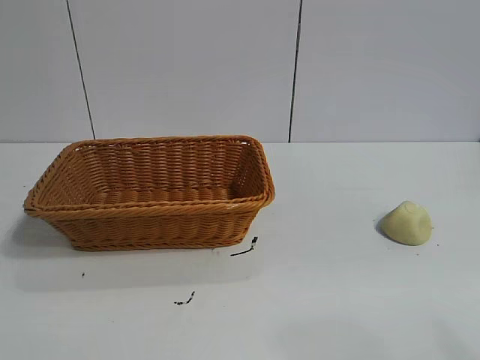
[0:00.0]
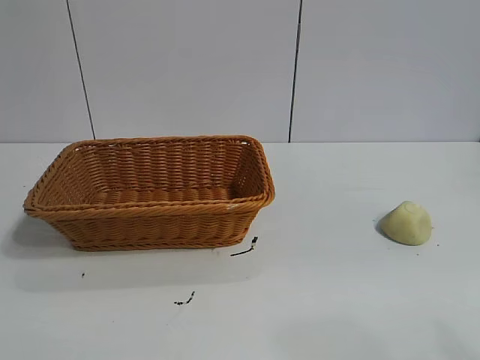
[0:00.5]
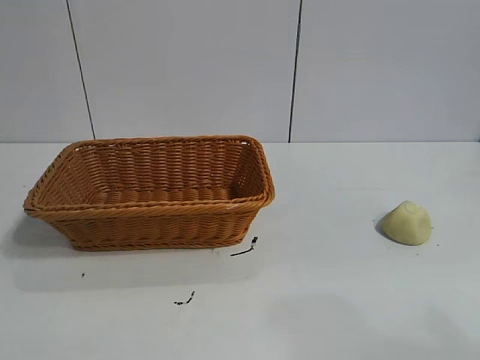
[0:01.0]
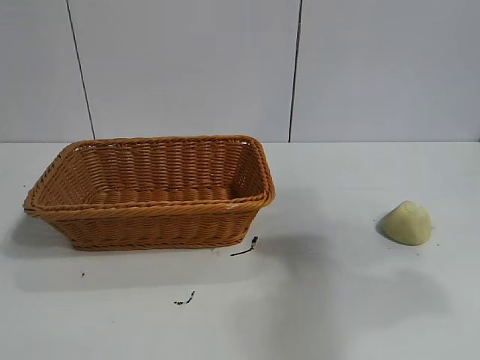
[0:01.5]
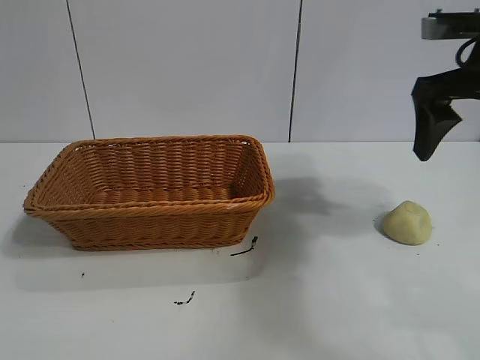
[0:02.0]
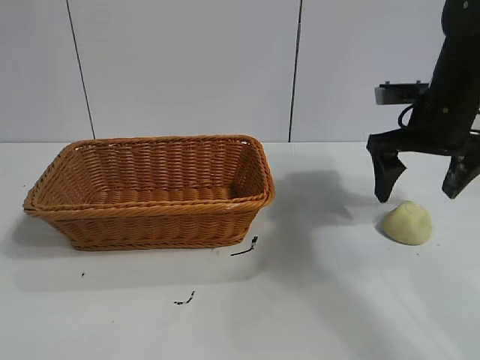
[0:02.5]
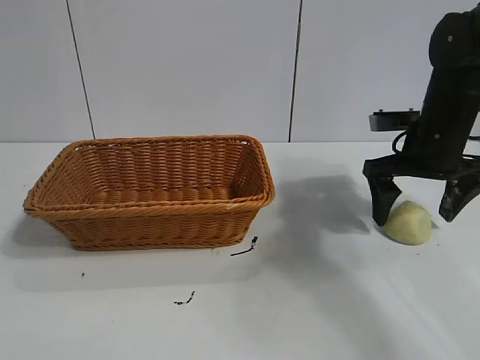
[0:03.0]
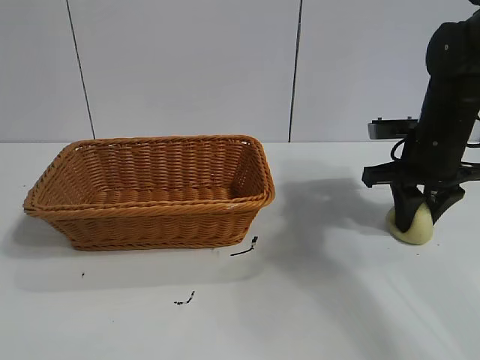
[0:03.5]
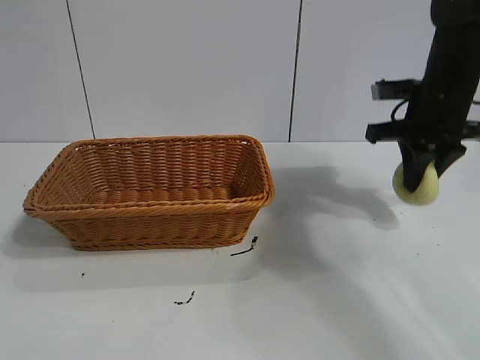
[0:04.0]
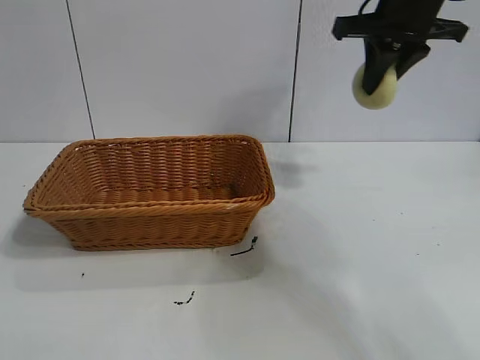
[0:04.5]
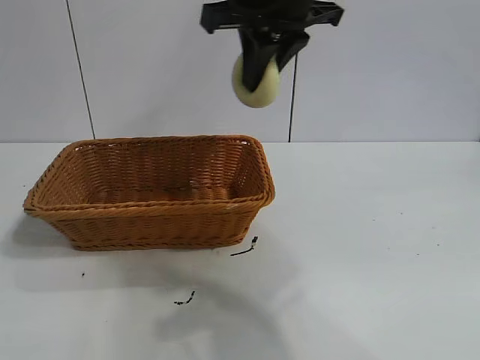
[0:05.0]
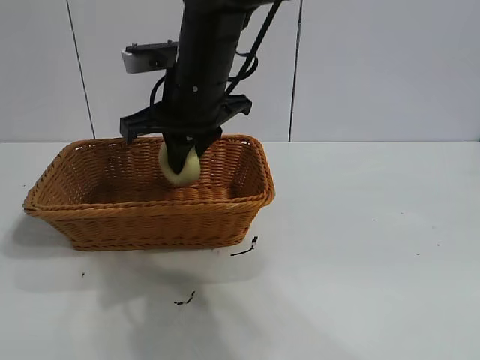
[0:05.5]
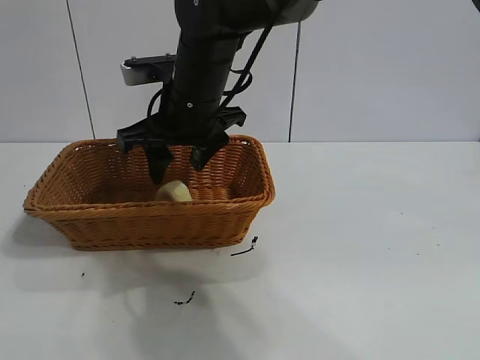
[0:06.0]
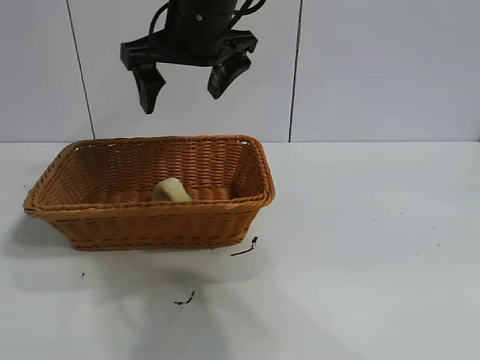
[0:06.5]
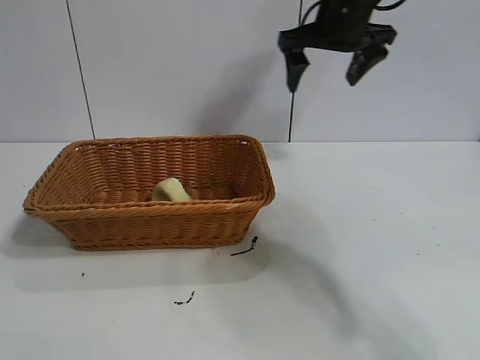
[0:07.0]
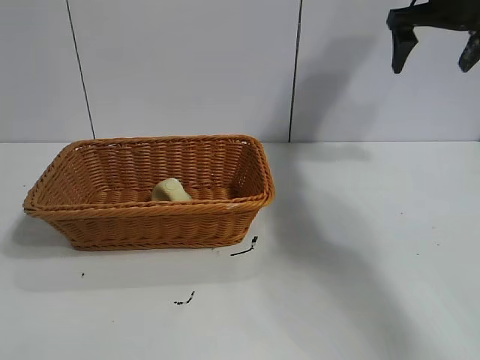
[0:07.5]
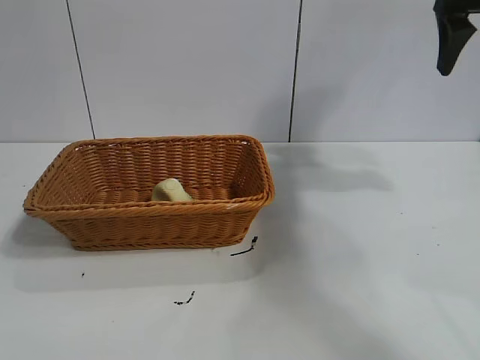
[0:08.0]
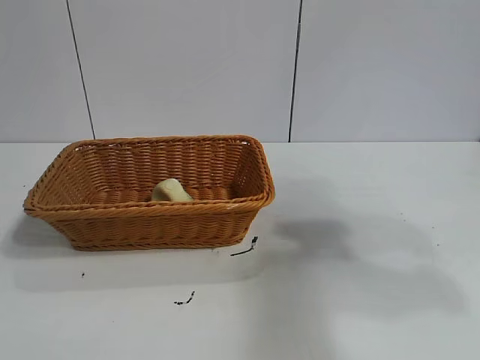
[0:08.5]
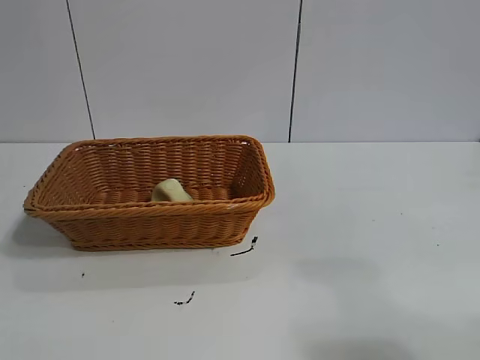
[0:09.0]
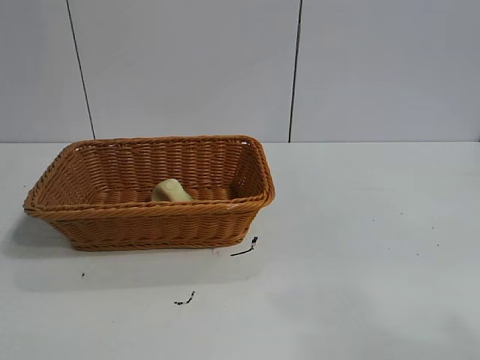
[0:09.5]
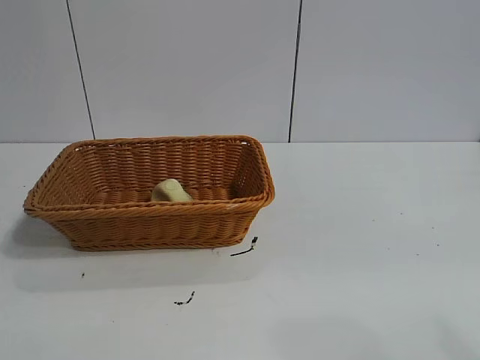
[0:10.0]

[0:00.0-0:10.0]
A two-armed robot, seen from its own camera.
Task of the whole recording: pick up the egg yolk pastry and put it into the basket.
Step, 0:01.0 to 0:03.5: Grasp egg yolk pastry with right gripper.
Step, 0:04.0 to 0:06.0: Place the egg yolk pastry in the basket with right gripper.

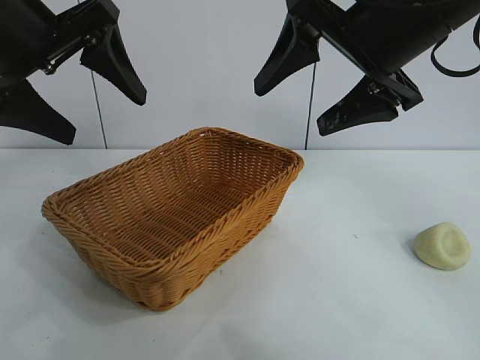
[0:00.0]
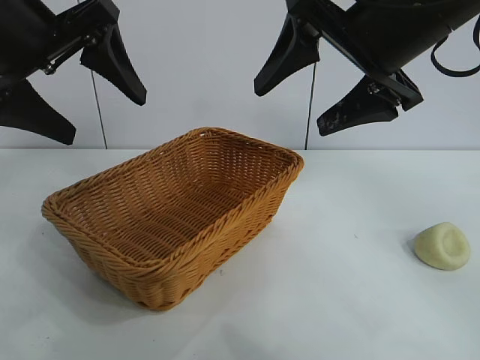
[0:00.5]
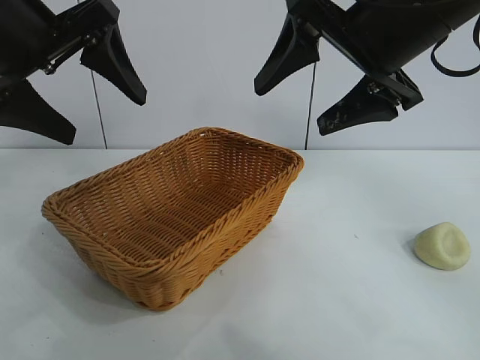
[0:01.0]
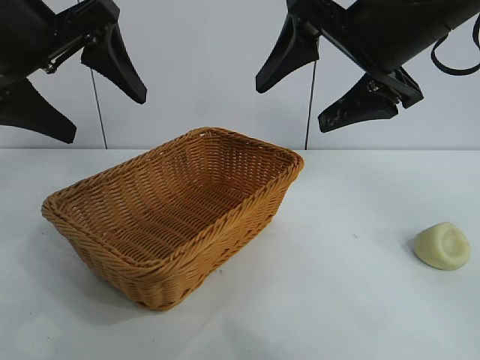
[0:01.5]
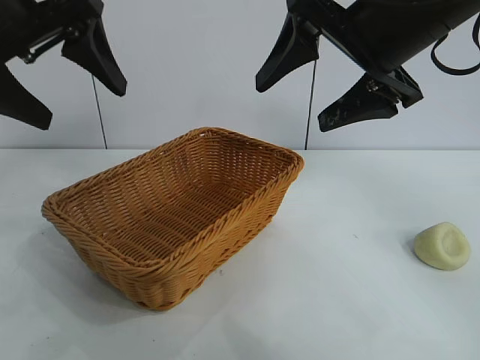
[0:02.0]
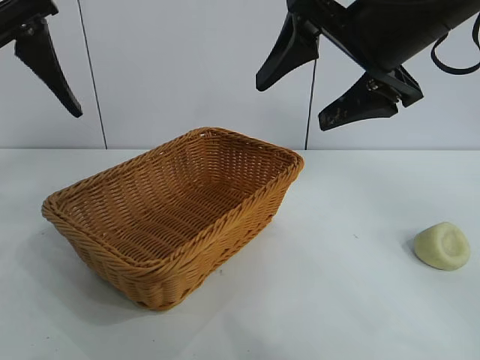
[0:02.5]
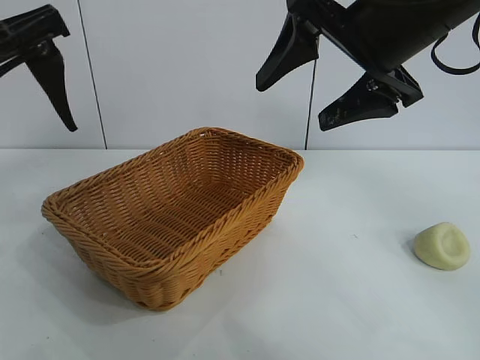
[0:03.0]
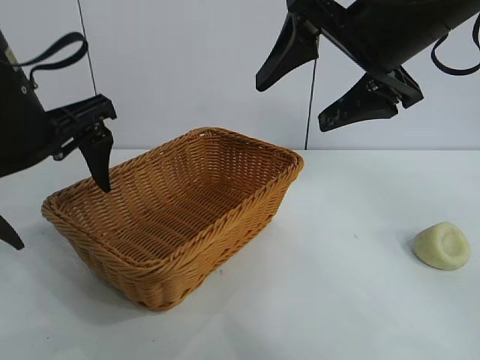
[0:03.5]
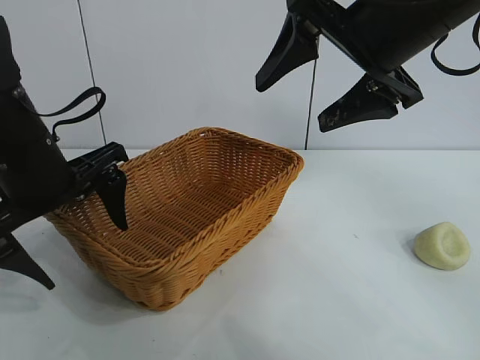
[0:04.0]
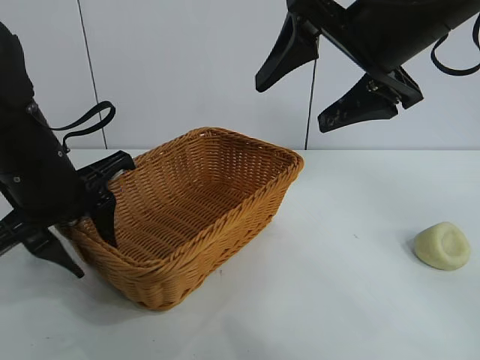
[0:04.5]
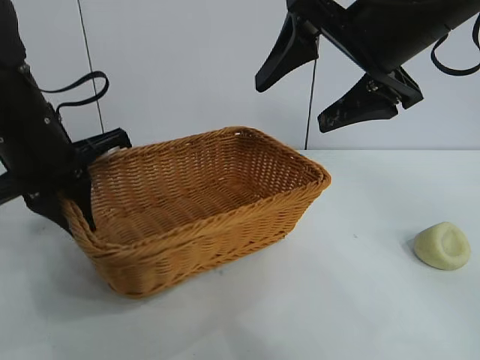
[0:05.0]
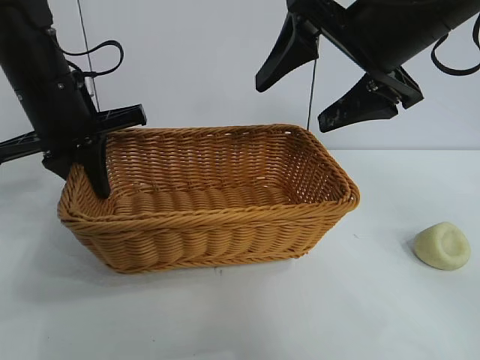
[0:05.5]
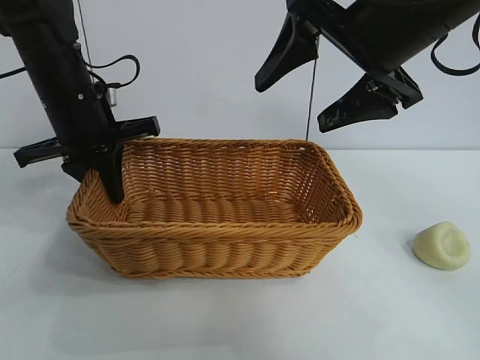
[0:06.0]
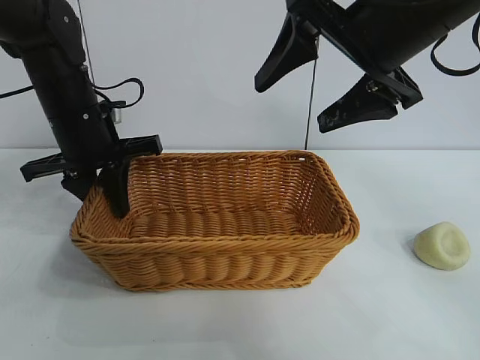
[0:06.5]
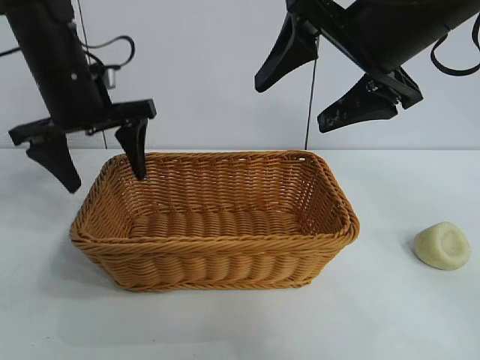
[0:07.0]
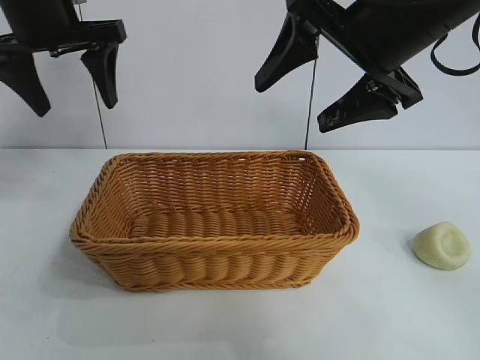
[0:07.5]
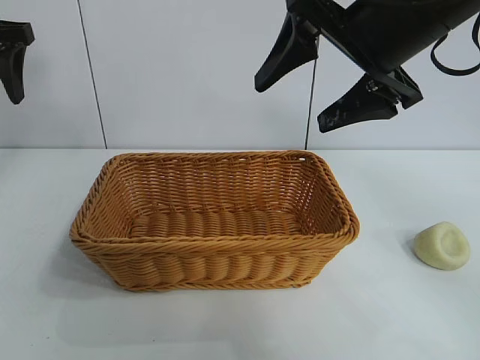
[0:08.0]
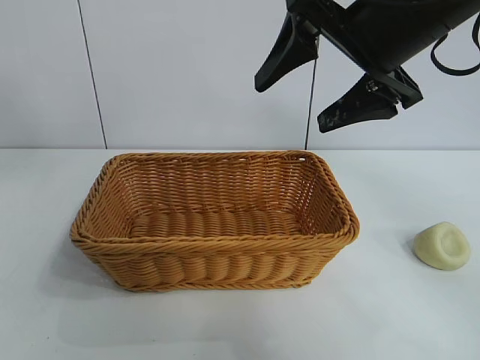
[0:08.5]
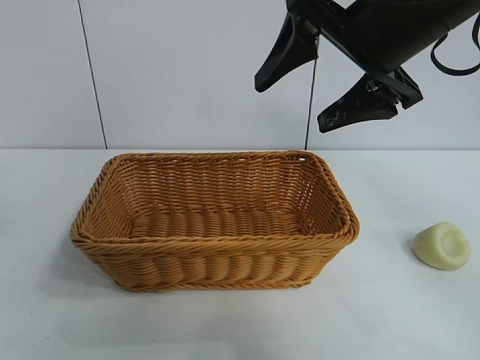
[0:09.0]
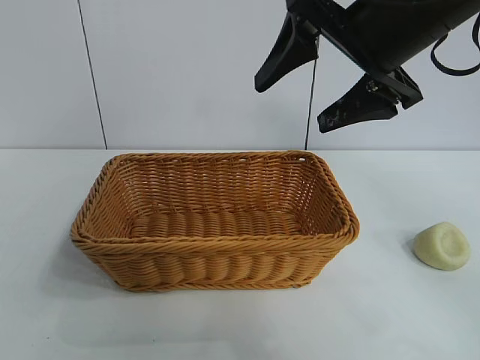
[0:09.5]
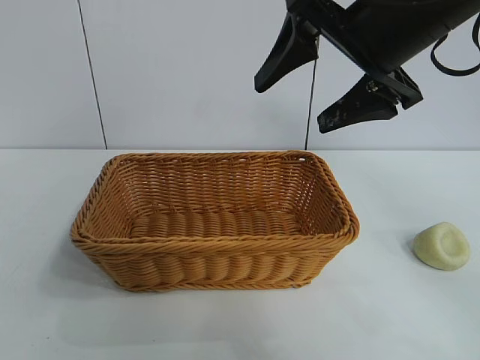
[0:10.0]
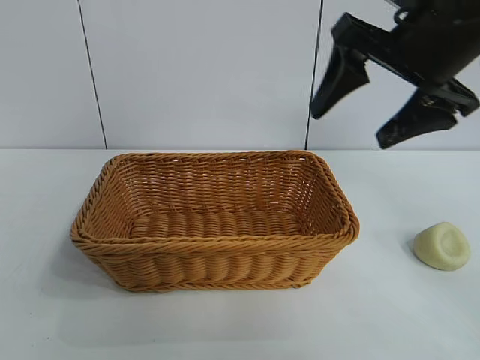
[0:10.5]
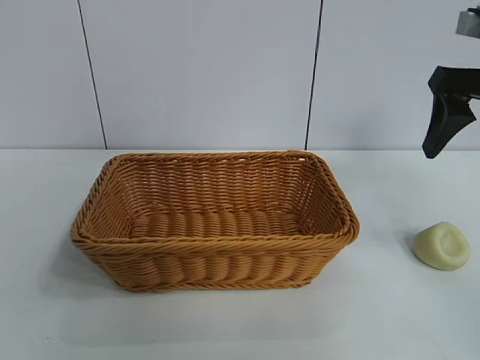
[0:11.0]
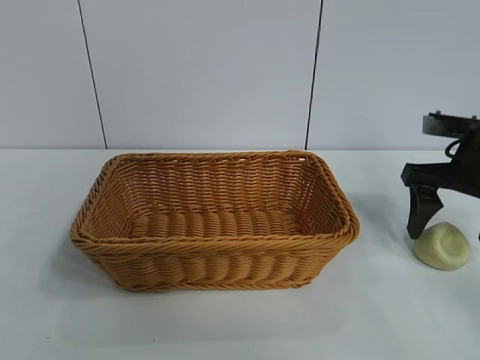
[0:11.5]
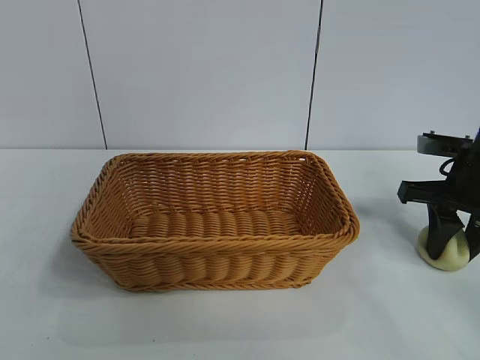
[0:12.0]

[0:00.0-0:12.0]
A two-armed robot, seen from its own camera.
Task of the whole recording: pick up the egg yolk pastry and put it into the basket.
Step, 0:01.0 to 0:04.5: Grasp the basket with left gripper.
Step, 0:05.0 to 0:06.5: Place the basket in the center of view with left gripper.
Step, 0:07.0 to 0:11.5: Grasp egg yolk pastry with right gripper.

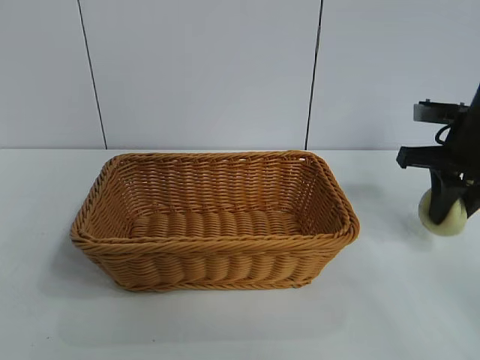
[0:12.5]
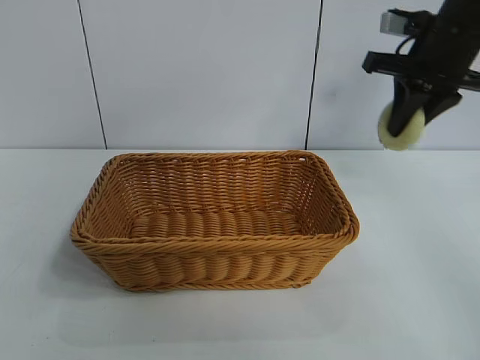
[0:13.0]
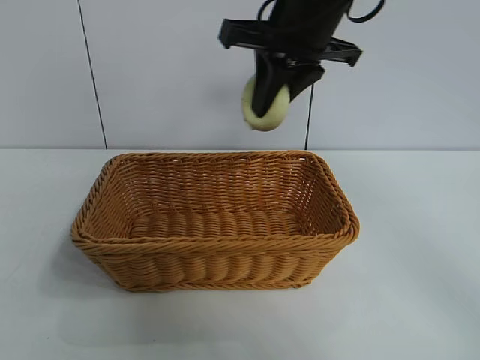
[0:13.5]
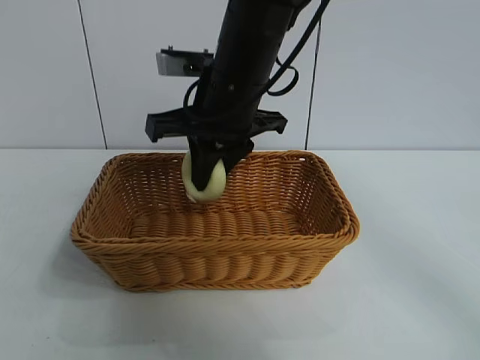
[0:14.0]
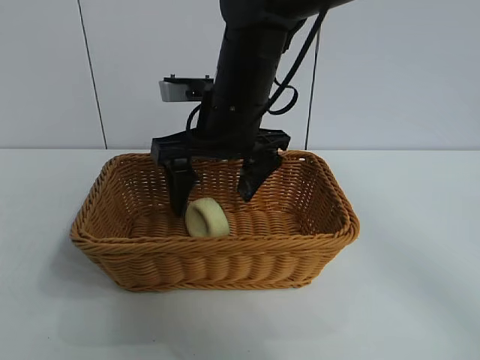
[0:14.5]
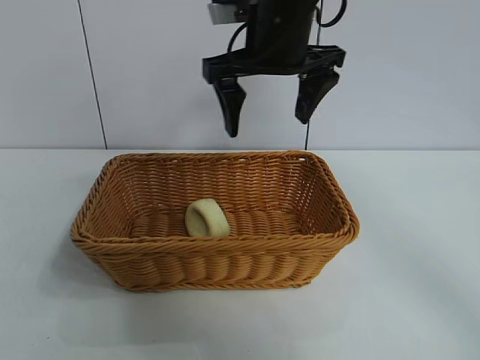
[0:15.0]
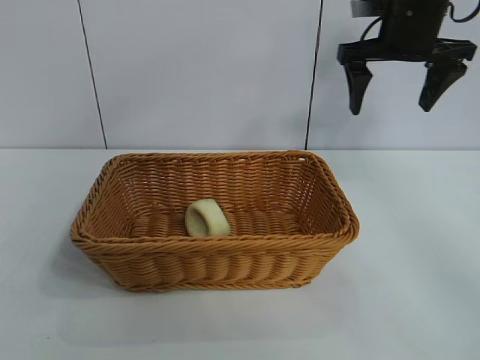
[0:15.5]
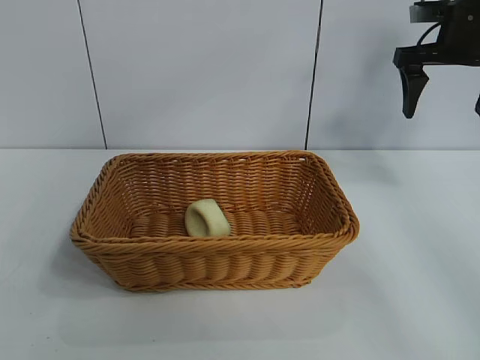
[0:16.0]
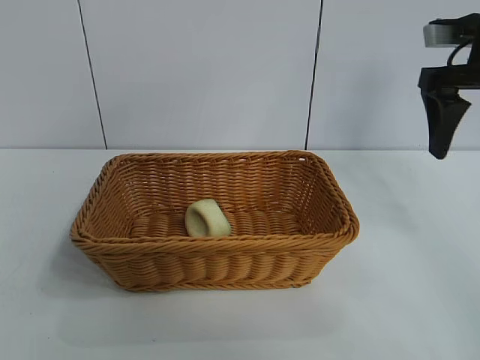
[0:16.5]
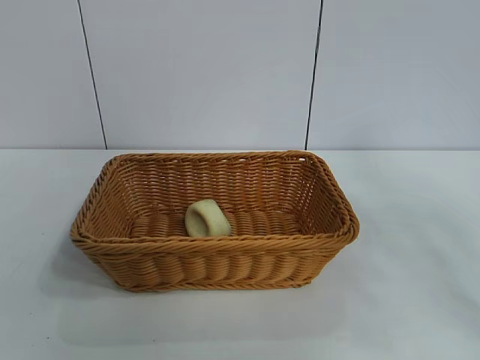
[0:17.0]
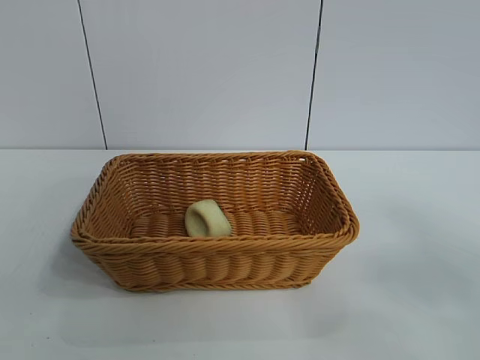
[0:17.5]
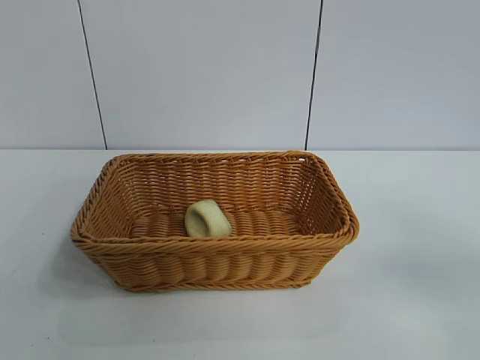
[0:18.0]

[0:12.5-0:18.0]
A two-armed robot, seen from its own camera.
Task of the whole recording: pick up the egg yolk pastry and put it into the basket.
Step, 0:12.5 to 0:14.0: Place the egg yolk pastry in the basket with right gripper.
